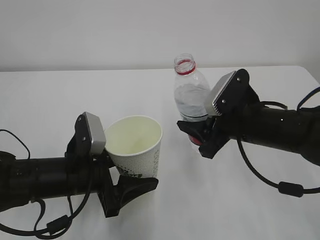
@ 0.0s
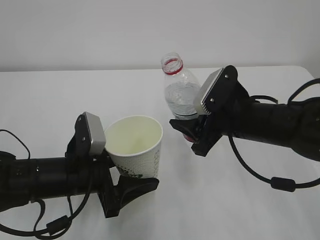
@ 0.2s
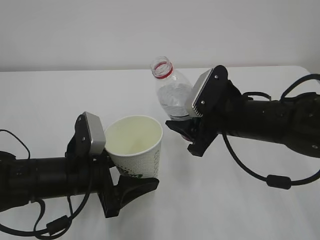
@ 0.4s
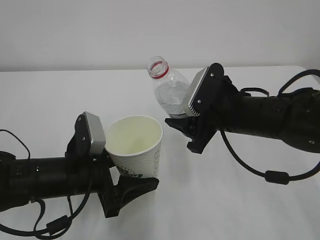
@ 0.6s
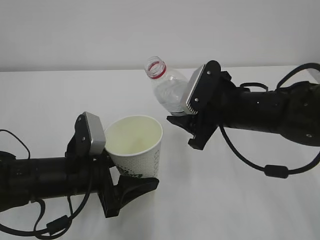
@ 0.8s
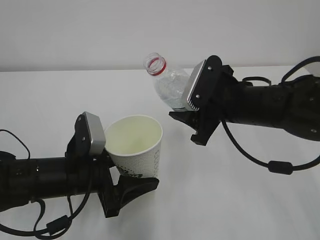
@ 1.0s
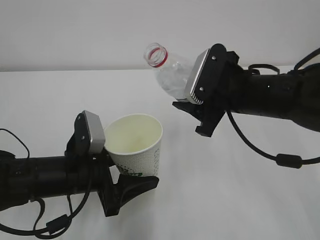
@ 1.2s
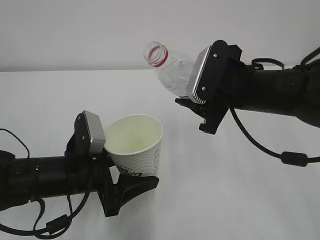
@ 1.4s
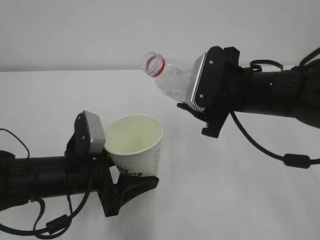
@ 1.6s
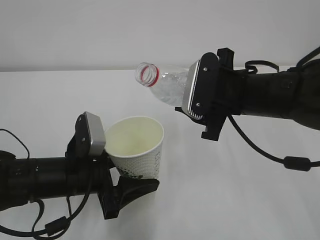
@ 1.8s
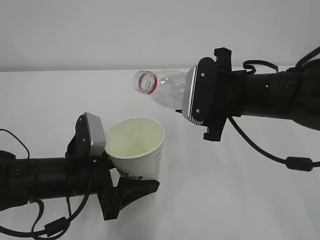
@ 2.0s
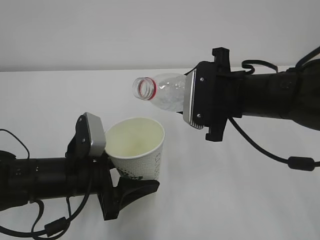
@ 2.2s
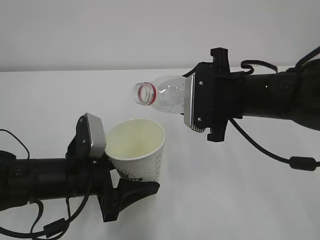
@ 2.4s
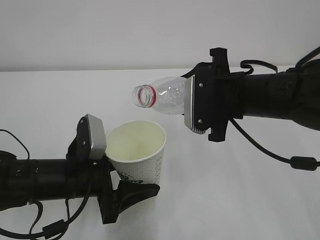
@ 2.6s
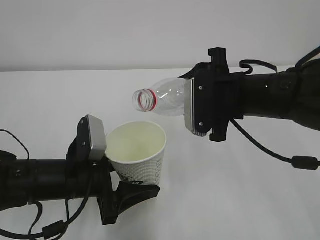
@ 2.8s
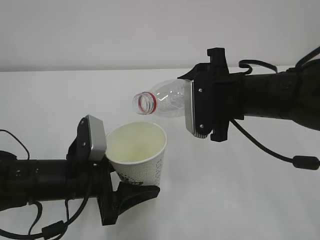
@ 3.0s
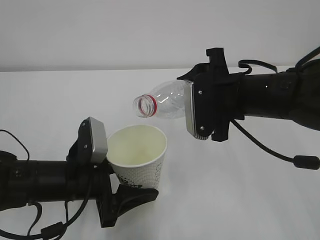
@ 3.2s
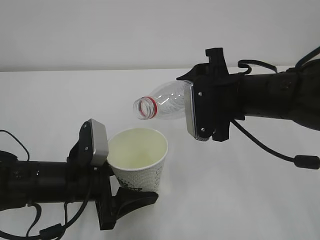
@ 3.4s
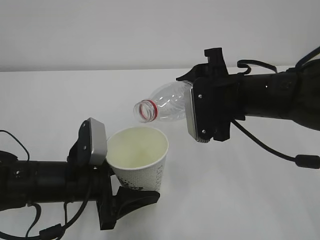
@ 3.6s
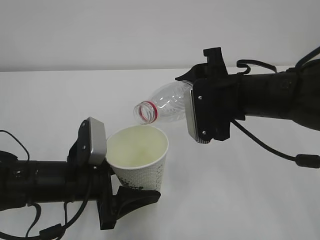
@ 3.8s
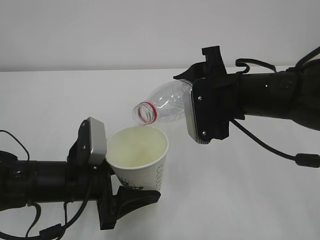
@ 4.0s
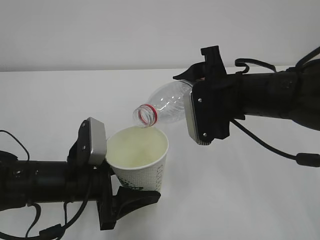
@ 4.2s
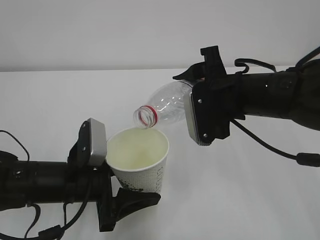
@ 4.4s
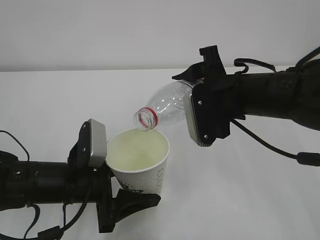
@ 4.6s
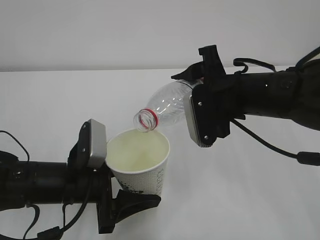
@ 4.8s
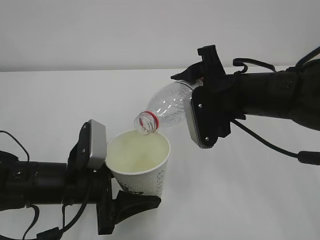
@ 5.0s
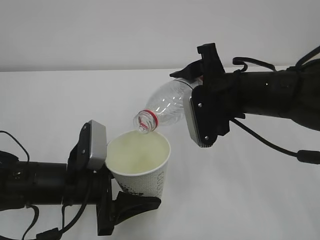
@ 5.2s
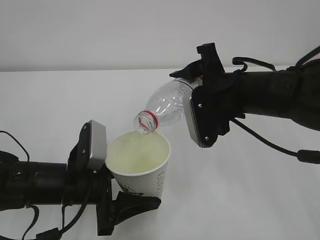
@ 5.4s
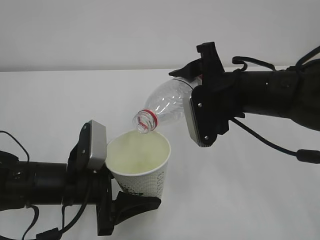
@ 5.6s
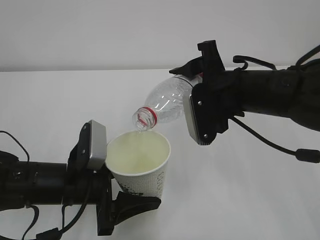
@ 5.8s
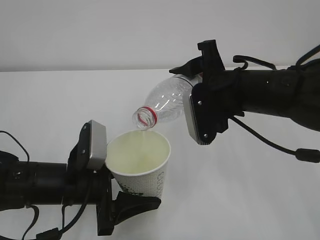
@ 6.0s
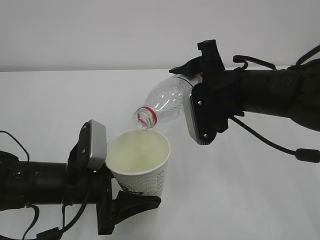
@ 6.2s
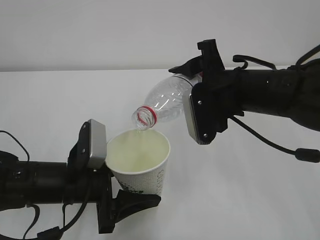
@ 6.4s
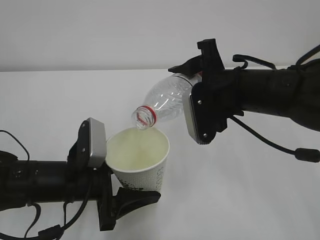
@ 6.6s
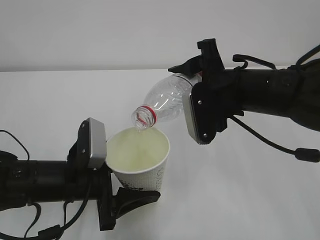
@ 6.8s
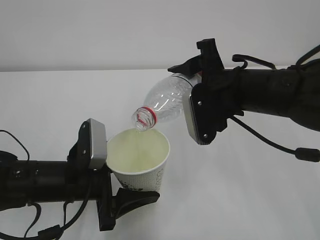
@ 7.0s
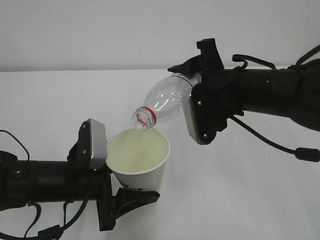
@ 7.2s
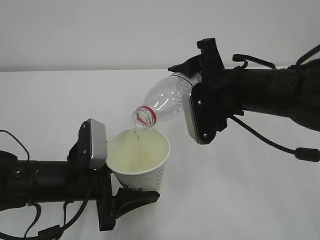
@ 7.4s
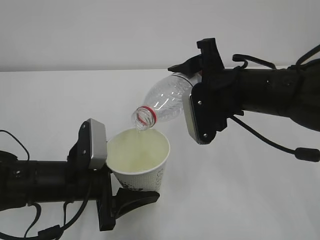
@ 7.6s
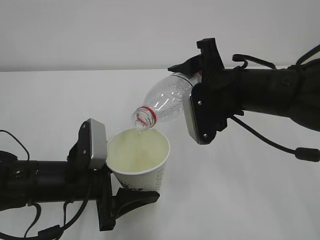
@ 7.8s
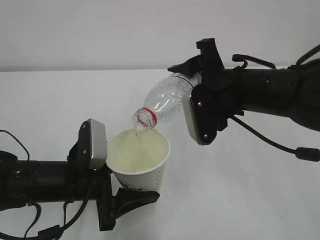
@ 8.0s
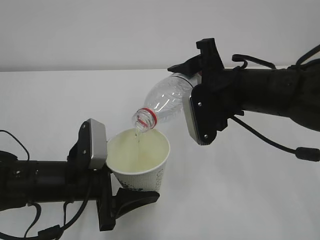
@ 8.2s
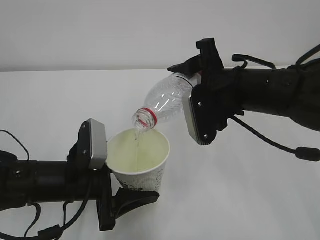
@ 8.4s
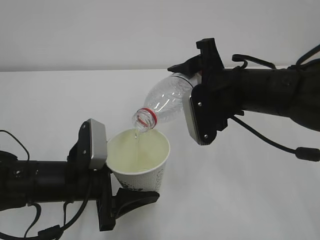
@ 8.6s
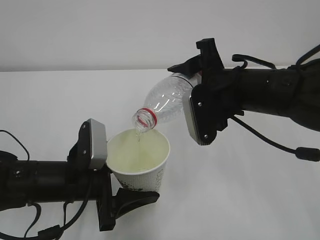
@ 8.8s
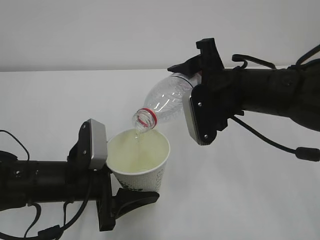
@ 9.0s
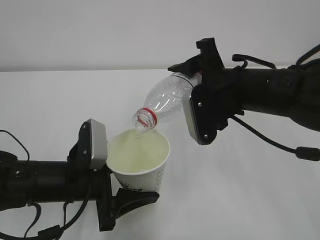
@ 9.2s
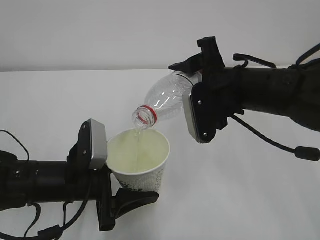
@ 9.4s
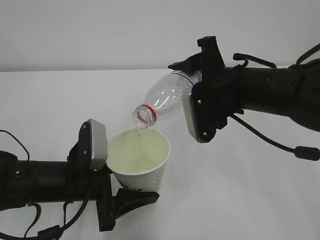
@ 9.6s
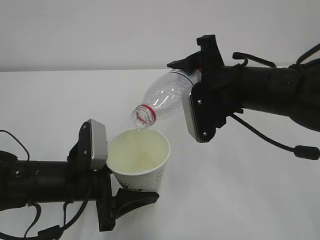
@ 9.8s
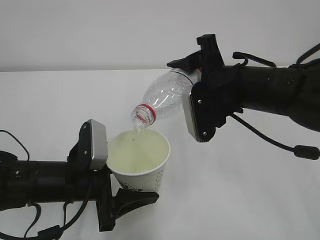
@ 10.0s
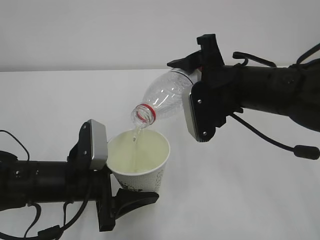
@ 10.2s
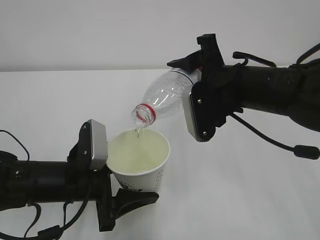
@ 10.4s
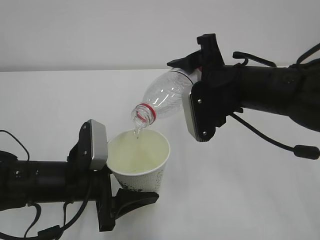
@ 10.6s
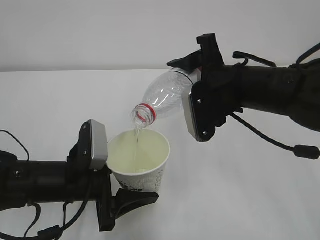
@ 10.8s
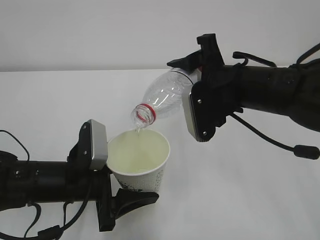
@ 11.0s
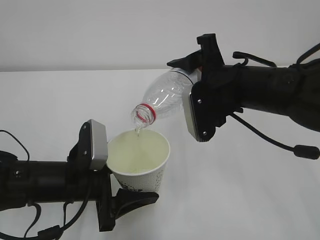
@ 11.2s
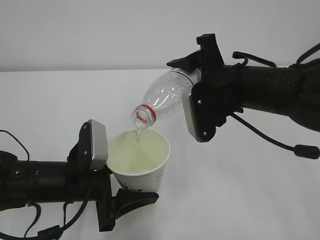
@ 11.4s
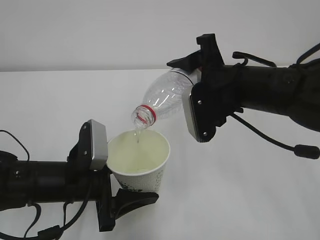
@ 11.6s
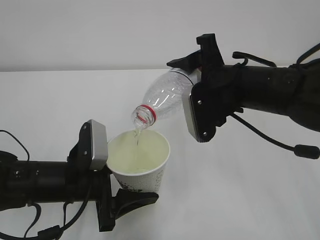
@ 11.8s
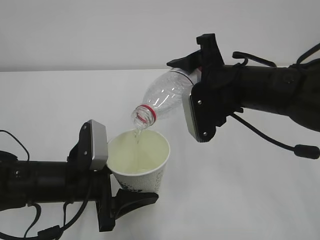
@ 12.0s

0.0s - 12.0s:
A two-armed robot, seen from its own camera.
0.0s - 1.6s: The right gripper shifts some 5 cm upward.
3.0s - 6.0s: The grippers make only small movements.
6.0s - 9.0s: Both grippers stay about where they are.
9.0s - 12.0s: Both grippers stay put.

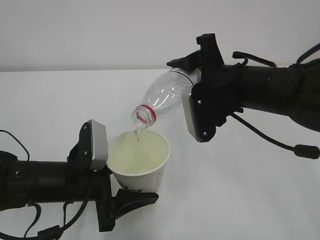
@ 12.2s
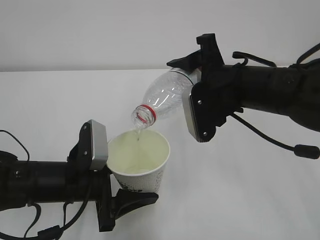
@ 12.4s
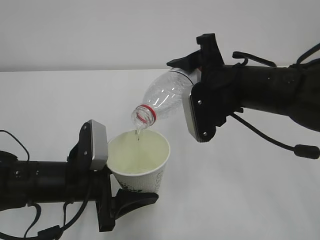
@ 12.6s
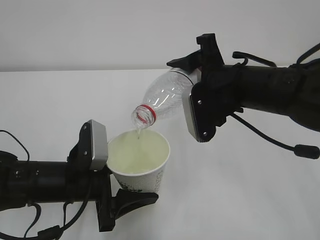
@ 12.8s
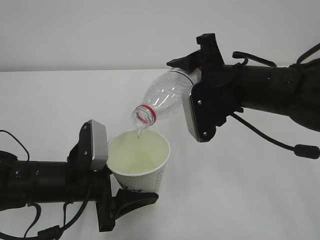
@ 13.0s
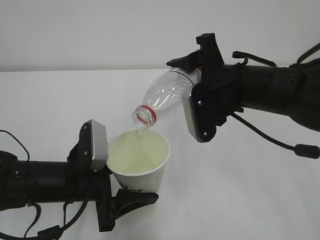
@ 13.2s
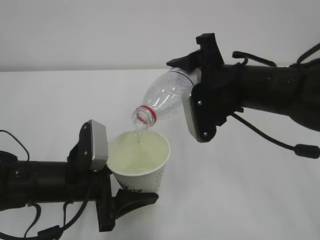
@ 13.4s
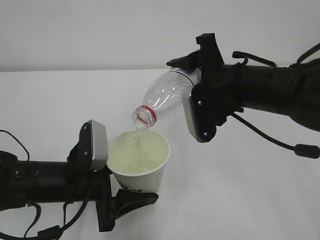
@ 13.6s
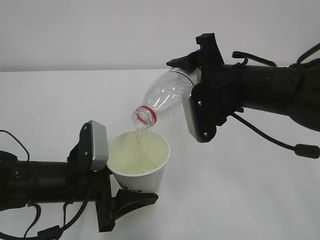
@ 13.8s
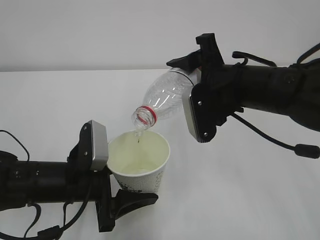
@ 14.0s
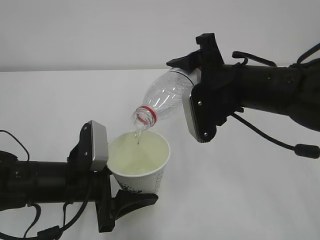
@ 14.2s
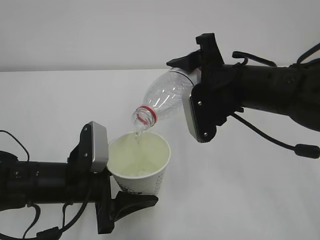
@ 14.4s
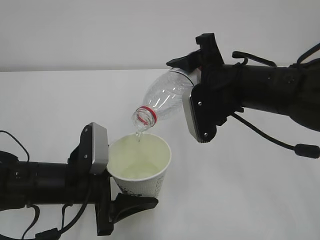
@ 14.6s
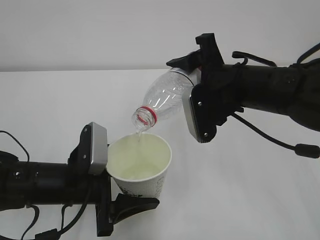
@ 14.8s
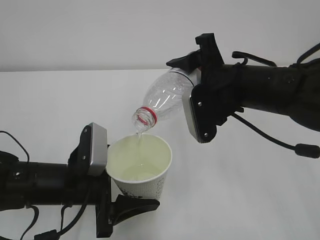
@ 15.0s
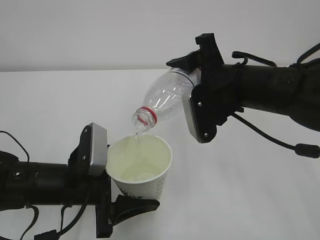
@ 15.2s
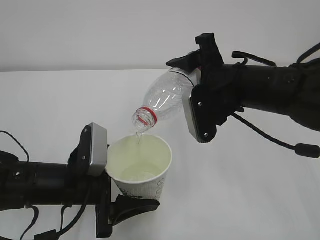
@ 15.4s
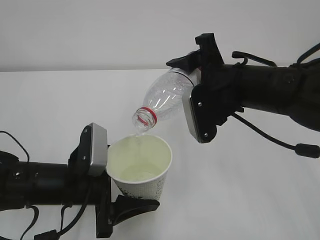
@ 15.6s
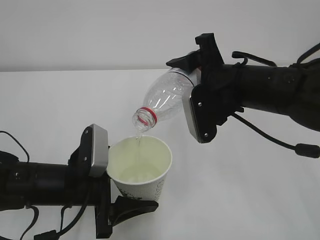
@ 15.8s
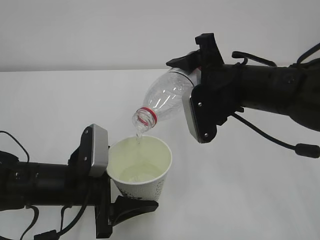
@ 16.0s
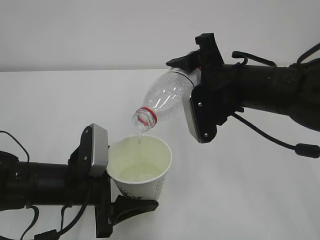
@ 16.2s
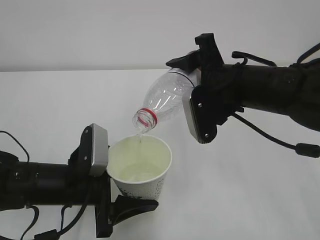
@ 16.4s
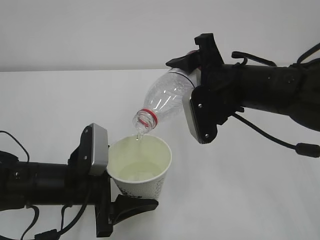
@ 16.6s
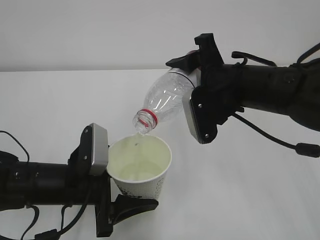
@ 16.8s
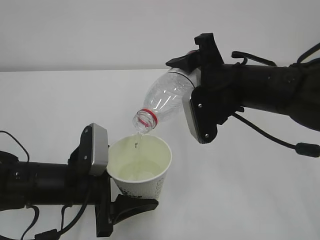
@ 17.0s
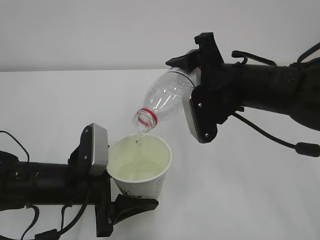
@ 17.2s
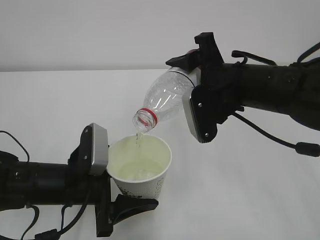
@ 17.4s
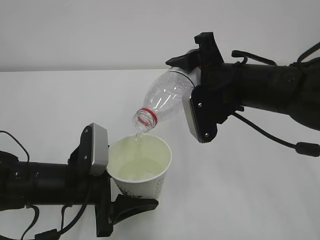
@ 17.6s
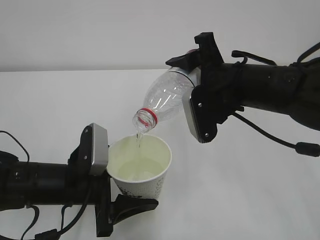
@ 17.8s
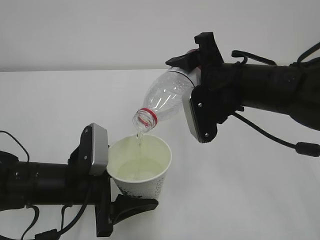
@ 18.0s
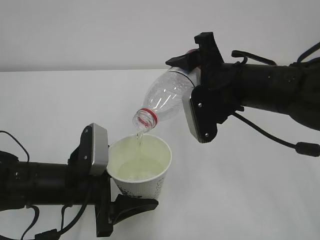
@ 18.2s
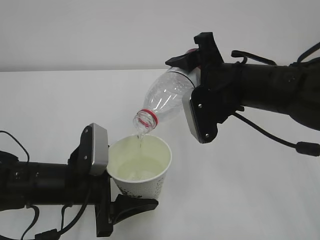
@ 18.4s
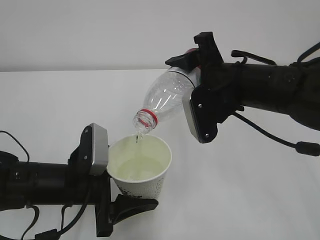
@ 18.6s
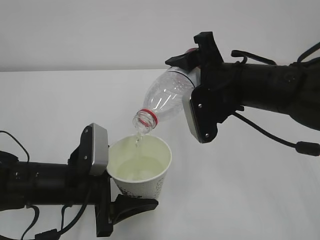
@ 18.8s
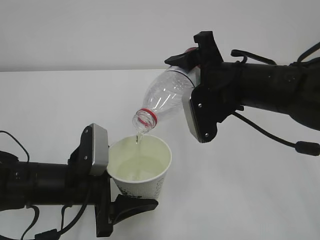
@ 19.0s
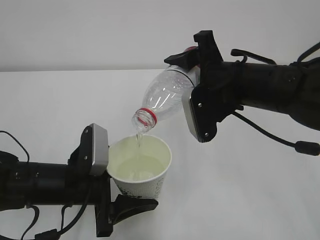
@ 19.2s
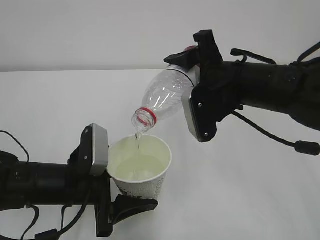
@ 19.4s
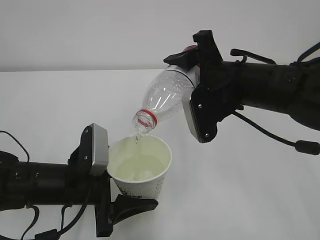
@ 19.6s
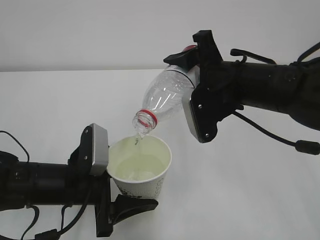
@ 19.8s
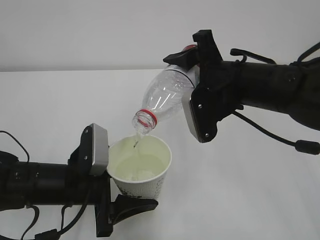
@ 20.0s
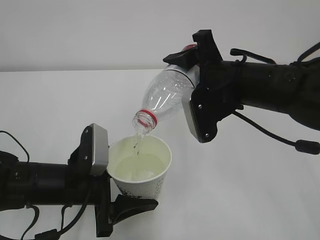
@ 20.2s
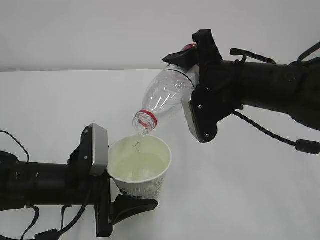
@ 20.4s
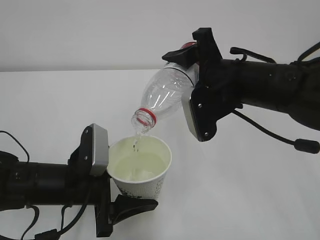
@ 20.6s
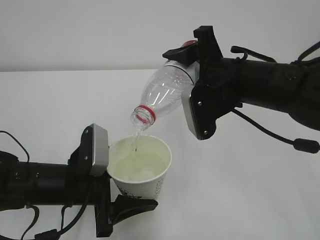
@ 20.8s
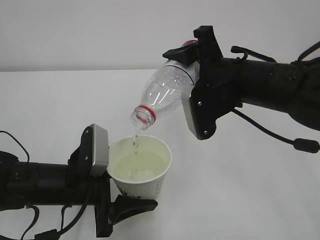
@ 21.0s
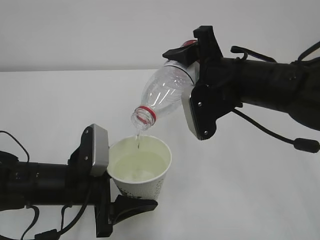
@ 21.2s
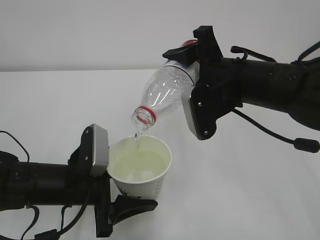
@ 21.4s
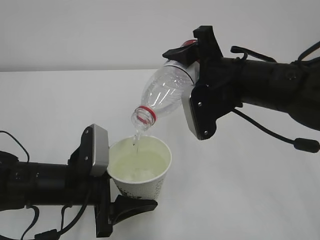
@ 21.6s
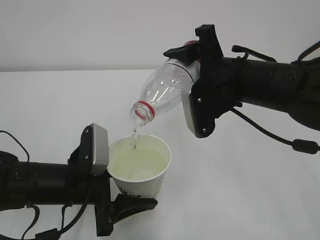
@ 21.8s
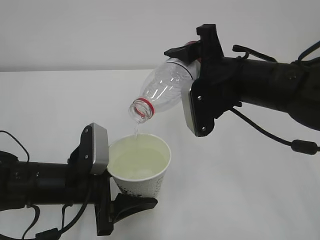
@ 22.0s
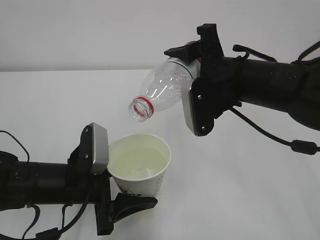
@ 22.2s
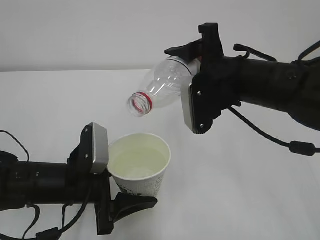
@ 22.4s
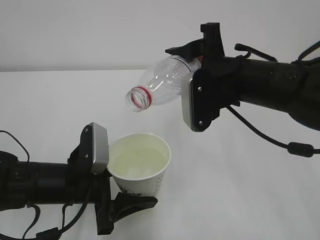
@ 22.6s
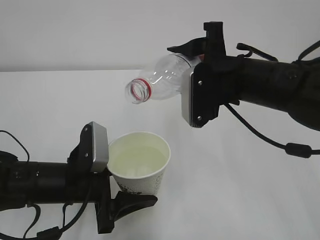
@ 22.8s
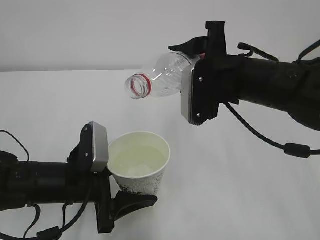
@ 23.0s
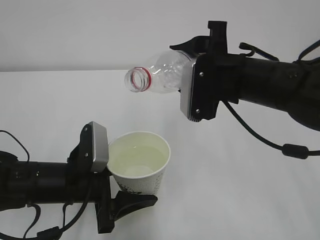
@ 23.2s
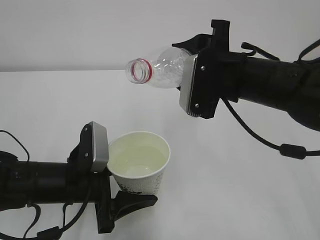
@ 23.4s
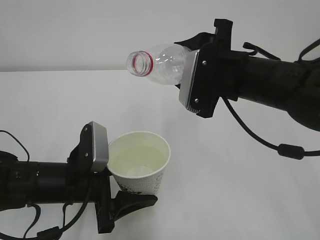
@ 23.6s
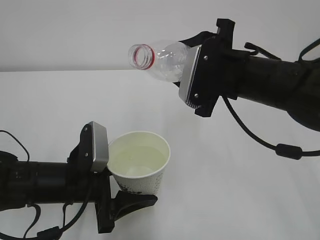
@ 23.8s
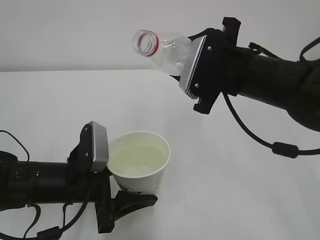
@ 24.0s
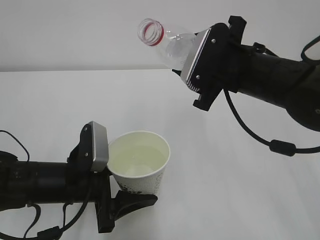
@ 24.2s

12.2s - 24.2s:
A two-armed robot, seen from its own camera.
12.2s - 18.2s: Both grippers stay put.
18.2s - 19.8s: Both grippers stay put.
19.8s - 21.2s: Neither gripper changes place.
21.2s - 22.6s: The grippers stay close to where they were, moving slightly.
